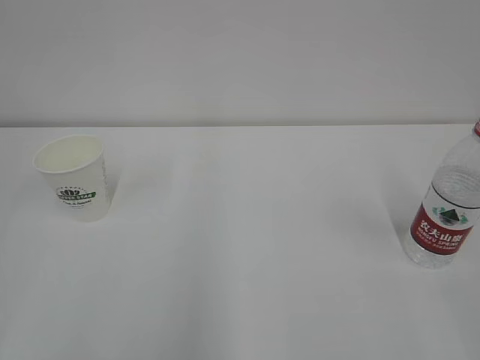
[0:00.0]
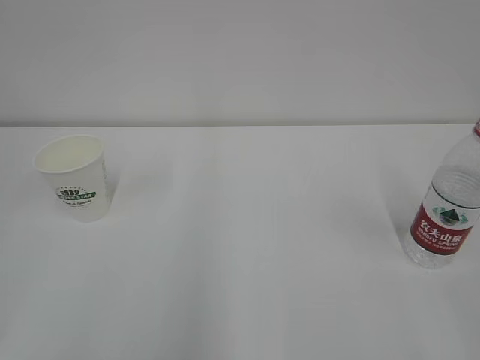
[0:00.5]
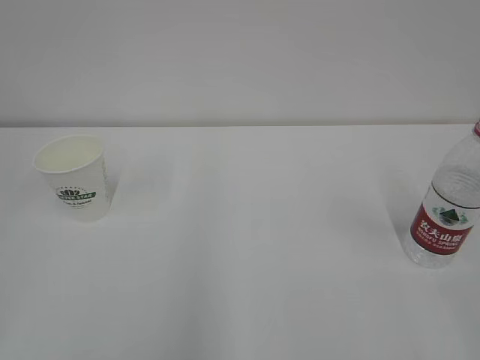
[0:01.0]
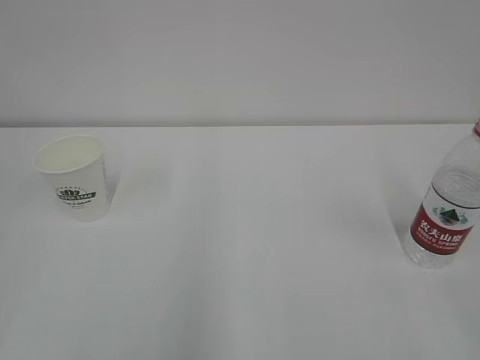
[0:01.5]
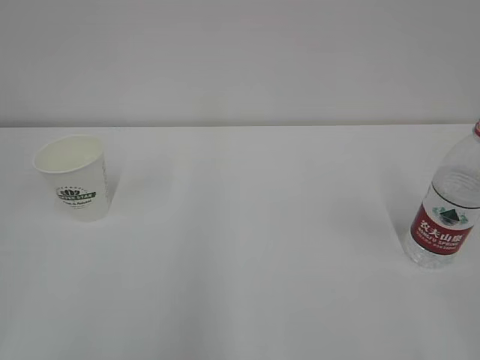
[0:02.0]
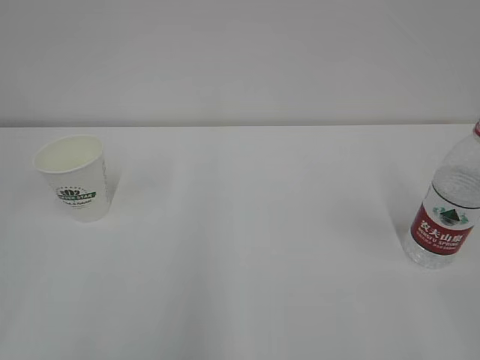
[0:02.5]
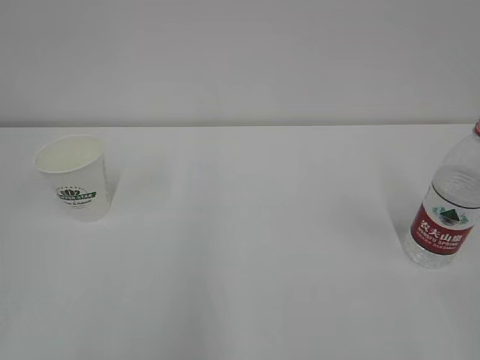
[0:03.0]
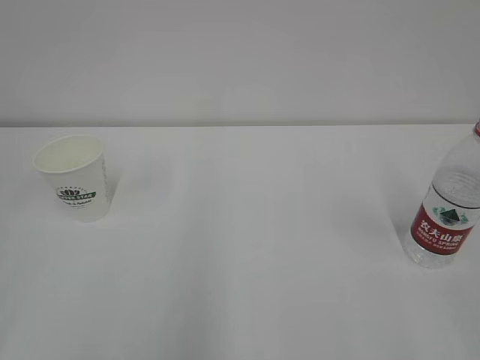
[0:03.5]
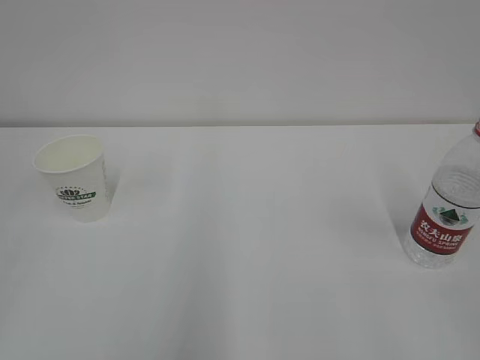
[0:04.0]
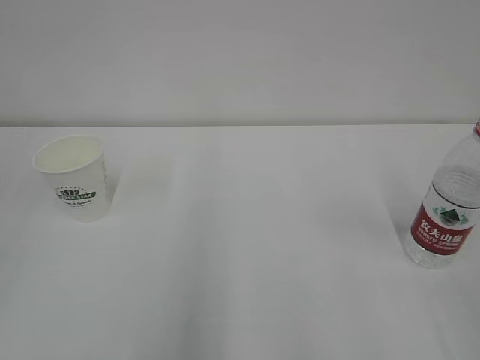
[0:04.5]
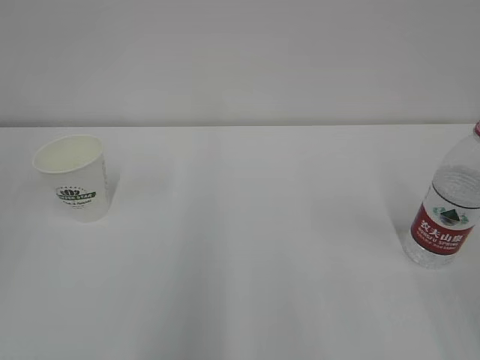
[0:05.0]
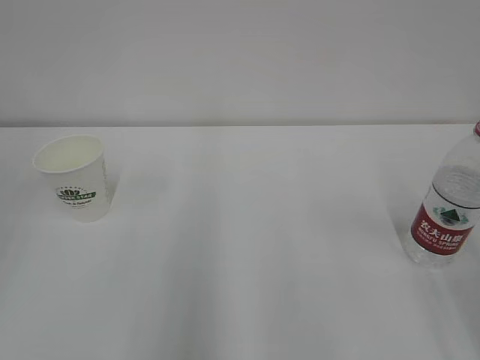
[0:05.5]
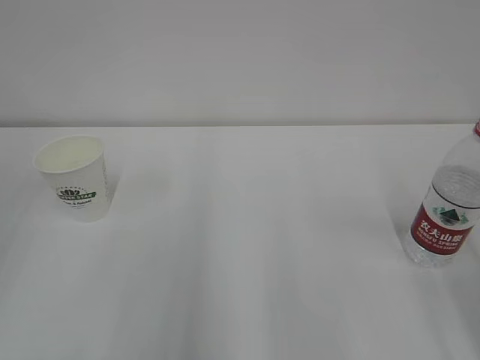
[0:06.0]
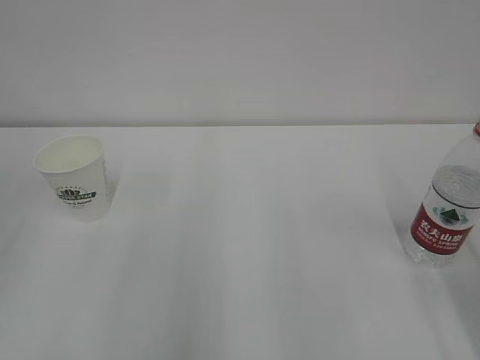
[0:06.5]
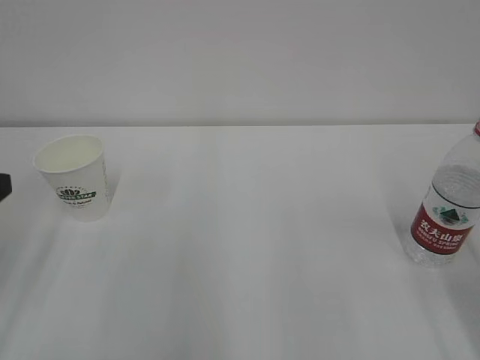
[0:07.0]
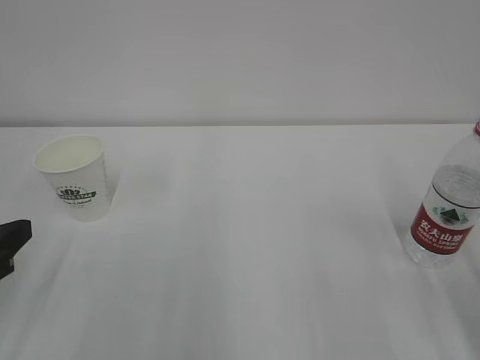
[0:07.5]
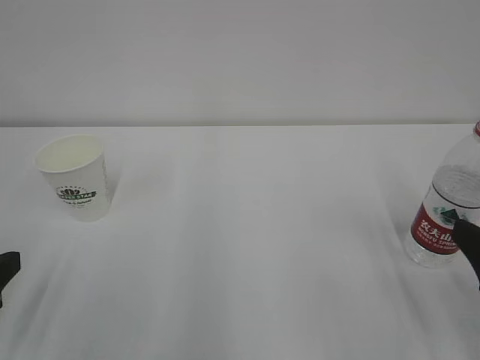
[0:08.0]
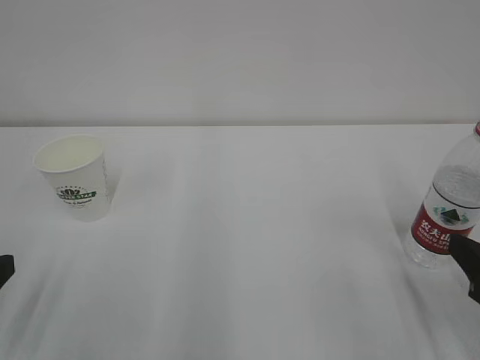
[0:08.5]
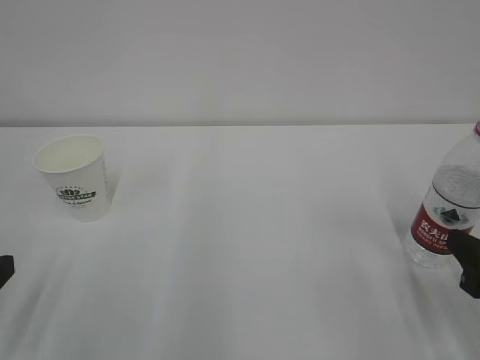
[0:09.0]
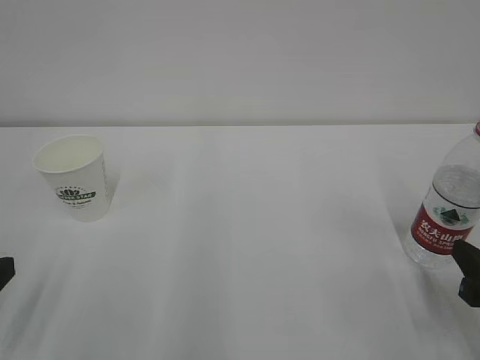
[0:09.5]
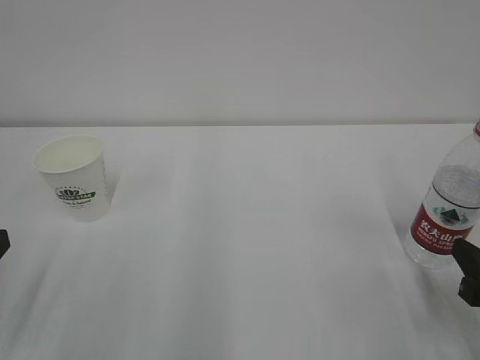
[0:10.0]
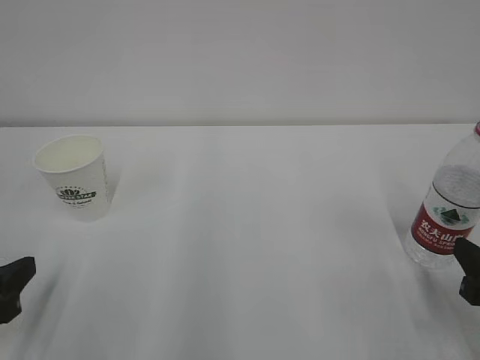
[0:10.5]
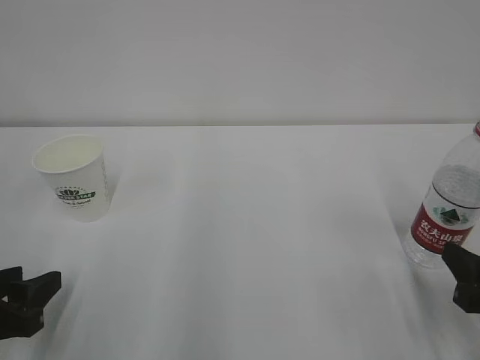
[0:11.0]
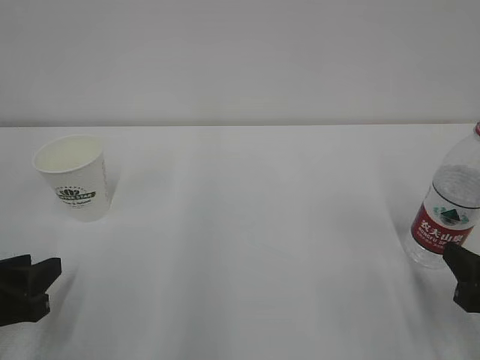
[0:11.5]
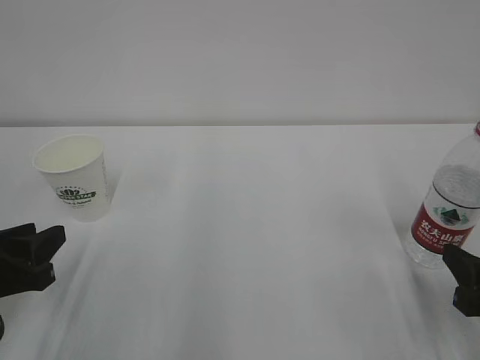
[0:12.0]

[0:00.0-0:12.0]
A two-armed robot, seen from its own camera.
6.0 to 8.0 s: The two grippers go about 10 cm downward.
8.0 to 10.0 s: The right gripper moves downward, about 5 cm, and closes up.
10.0 to 12.0 s: The left gripper shifts by roughly 5 cm.

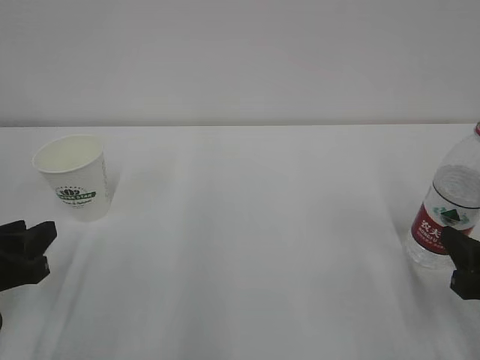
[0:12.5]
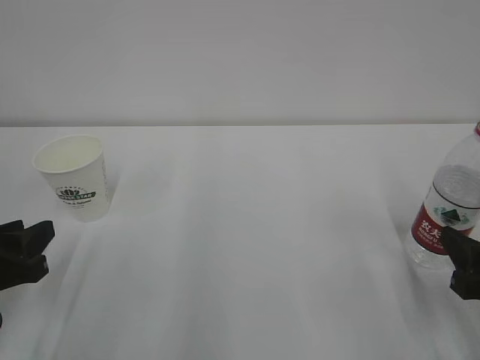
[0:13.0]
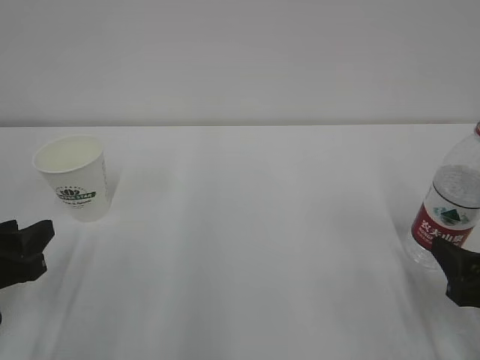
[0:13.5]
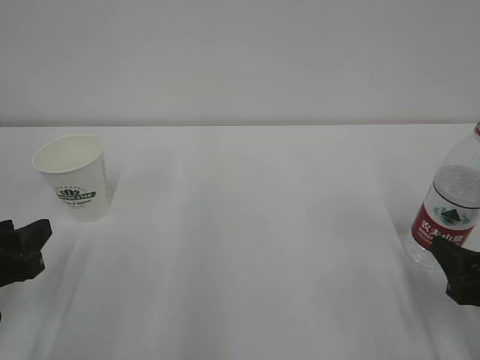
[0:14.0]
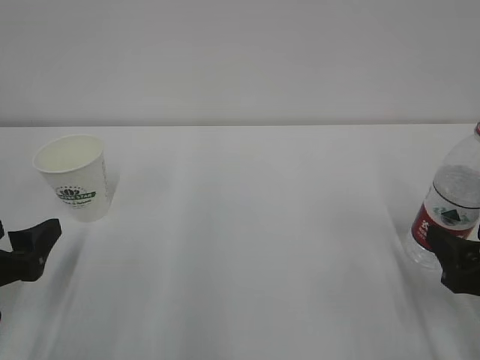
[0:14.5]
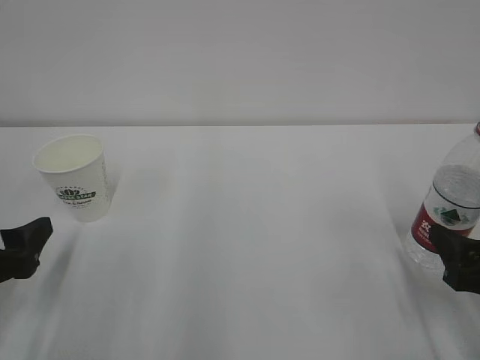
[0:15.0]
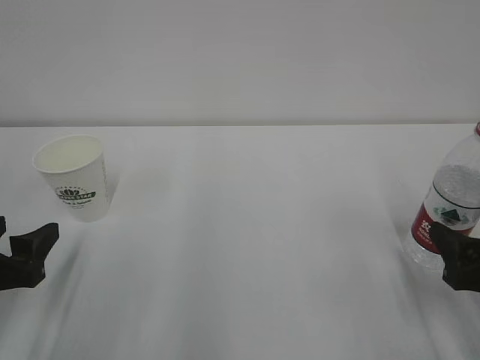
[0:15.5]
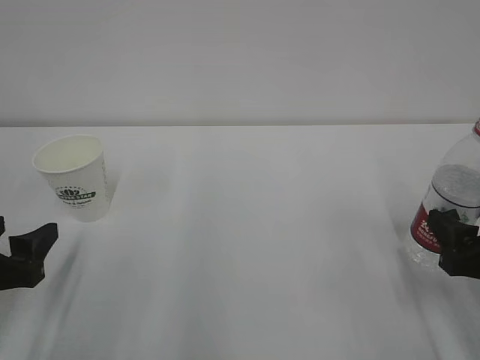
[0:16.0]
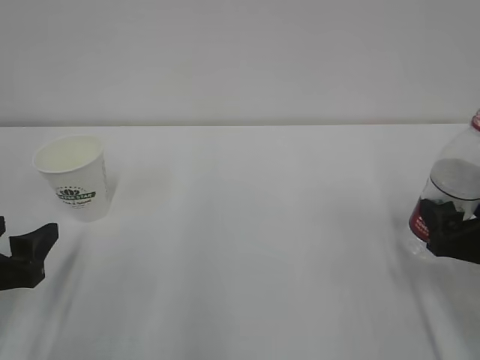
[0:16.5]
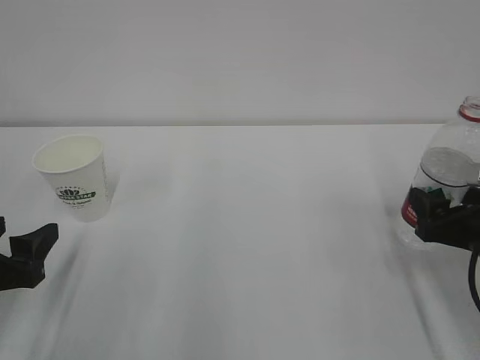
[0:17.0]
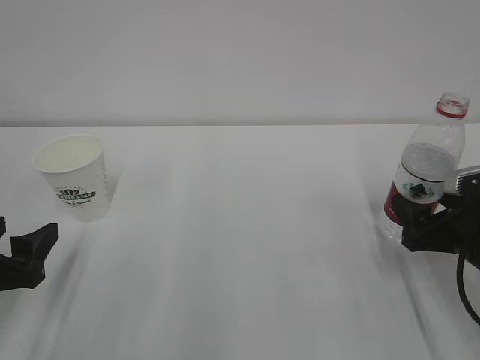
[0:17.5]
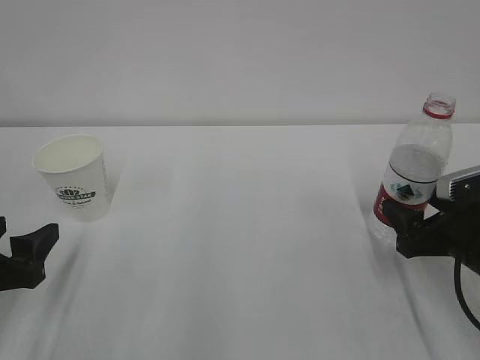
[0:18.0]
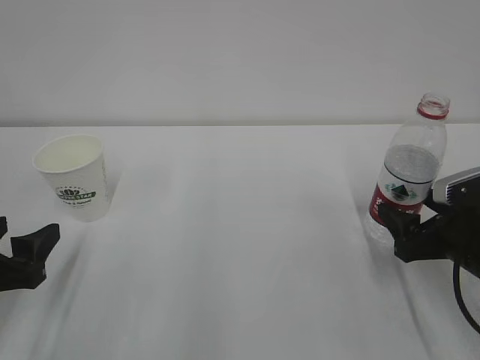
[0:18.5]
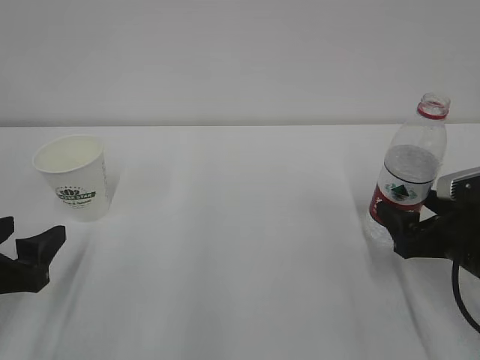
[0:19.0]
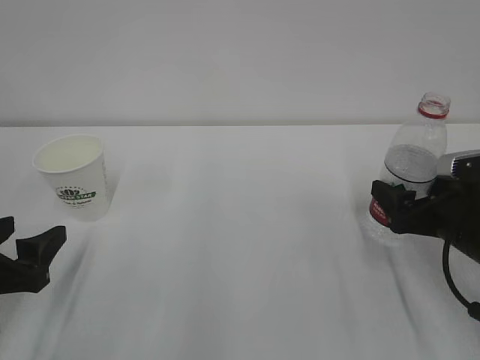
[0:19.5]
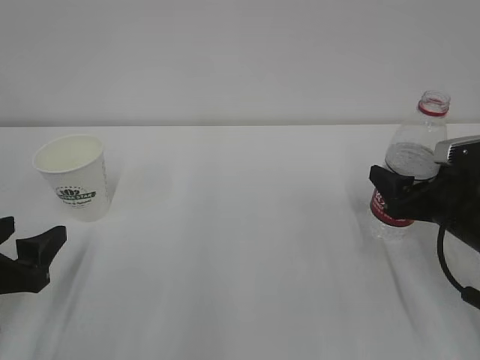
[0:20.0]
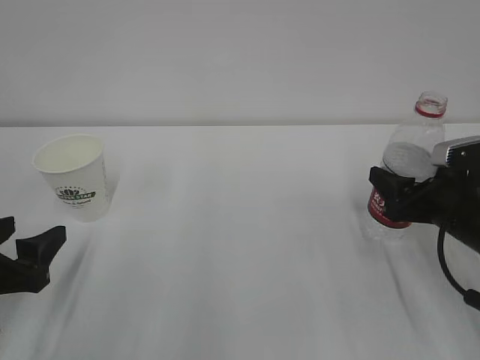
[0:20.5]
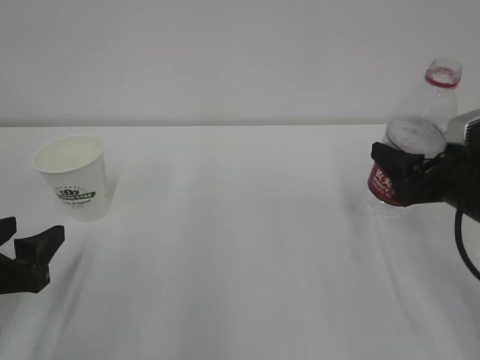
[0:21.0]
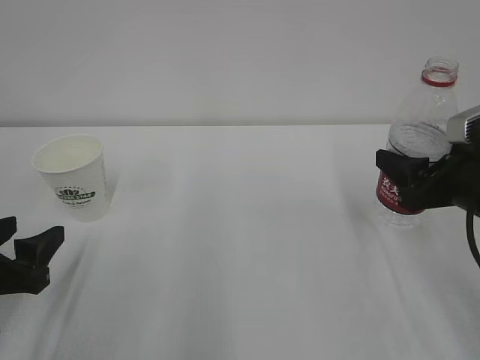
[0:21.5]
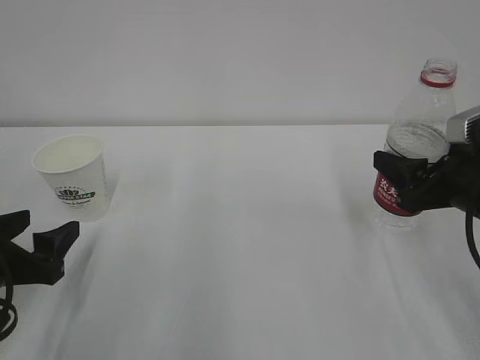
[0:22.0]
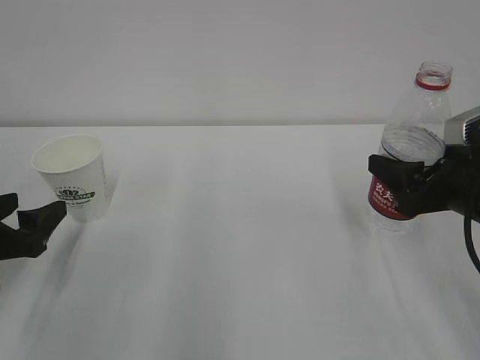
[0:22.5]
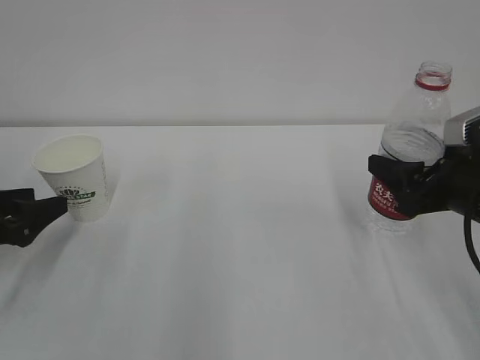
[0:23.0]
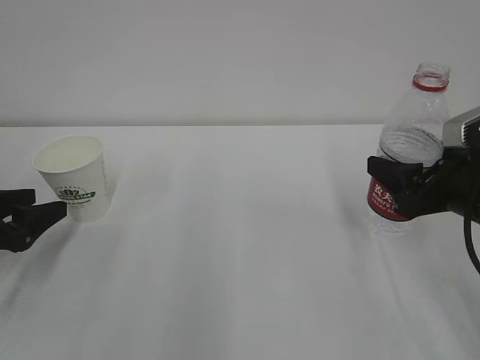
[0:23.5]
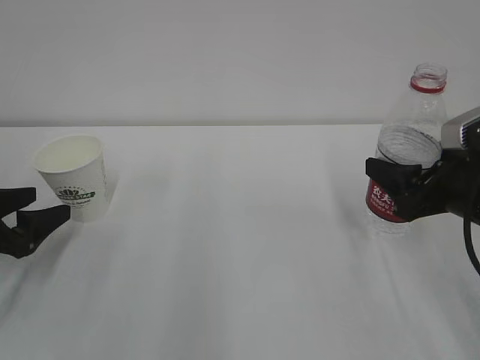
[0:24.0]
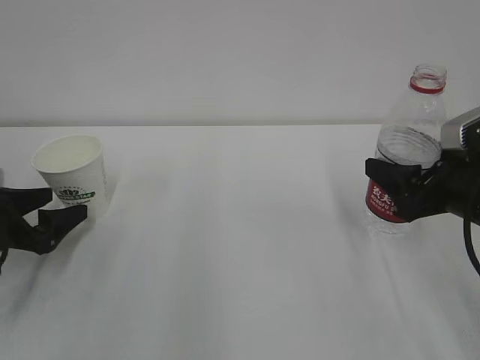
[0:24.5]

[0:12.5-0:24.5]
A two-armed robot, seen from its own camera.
12.5 to 14.5 s: The left gripper opens its fingers.
14.5 to 16.5 s: The grippers move only a little.
16.5 to 18.5 s: There are only small adjustments of the grippers.
18.5 to 20.5 s: The right gripper closes up.
20.5 to 22.5 s: The right gripper goes approximately 5 cm upward.
22.5 to 24.5 s: The left gripper heads forward, covering about 5 cm.

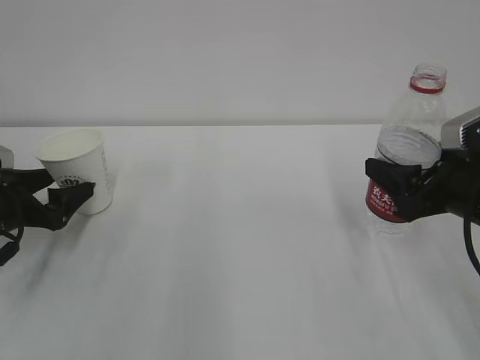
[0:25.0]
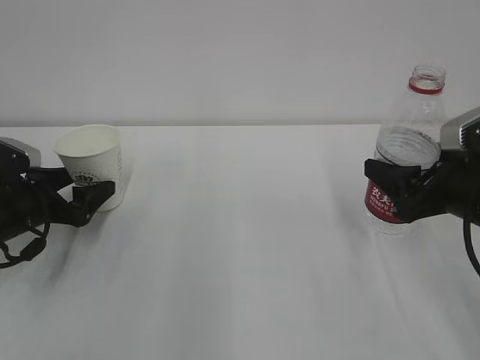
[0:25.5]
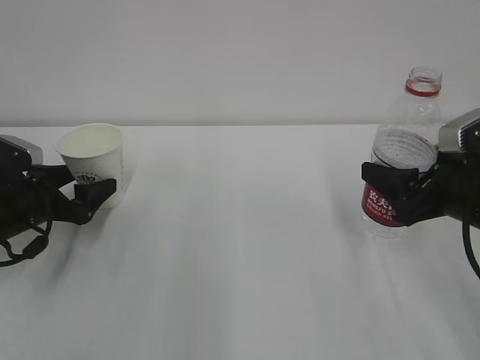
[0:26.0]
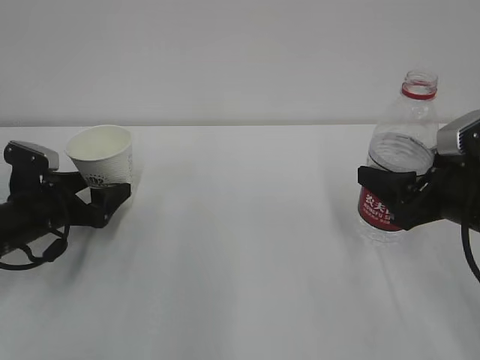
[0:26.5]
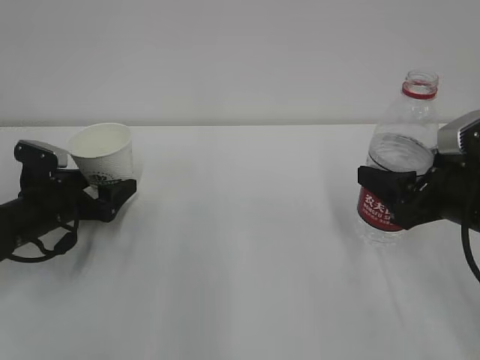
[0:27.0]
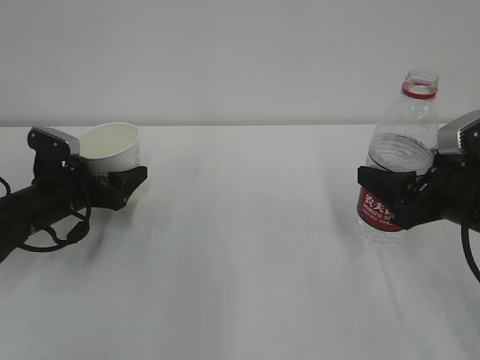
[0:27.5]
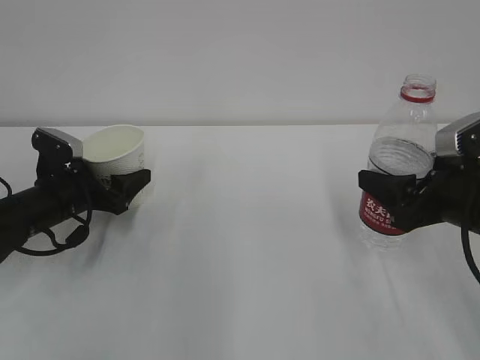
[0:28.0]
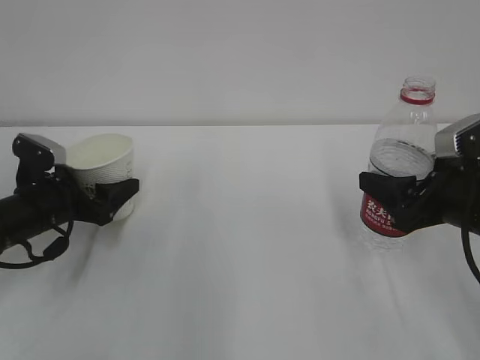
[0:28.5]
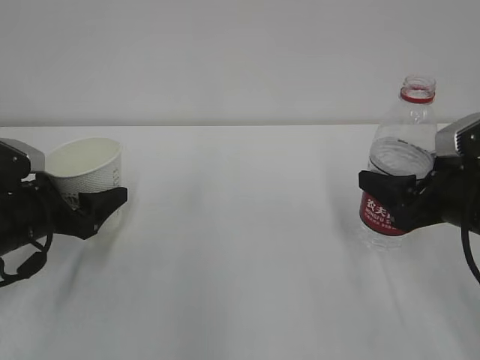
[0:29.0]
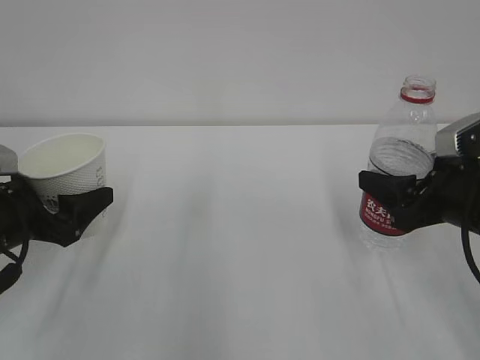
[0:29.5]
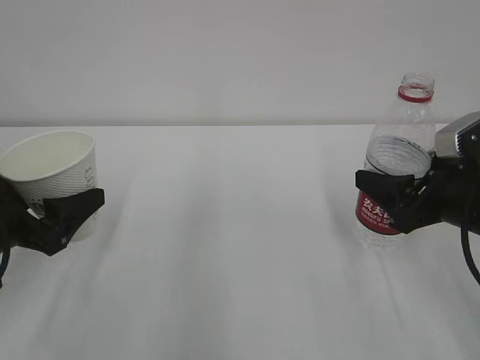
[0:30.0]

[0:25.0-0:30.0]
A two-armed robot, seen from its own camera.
25.0 to 27.5 s: The left gripper is displaced to the right by about 5 cm.
27.5 to 30.0 s: The left gripper shifts about 15 cm backward and upward.
